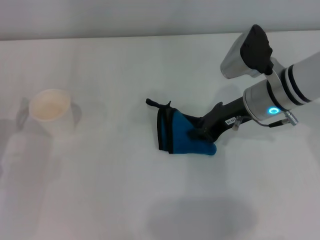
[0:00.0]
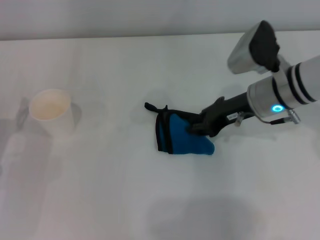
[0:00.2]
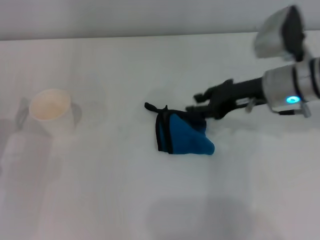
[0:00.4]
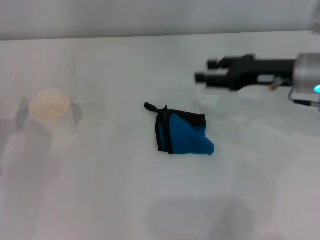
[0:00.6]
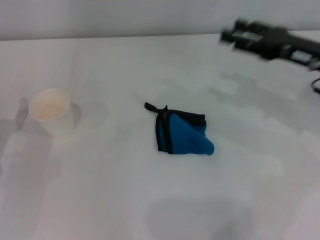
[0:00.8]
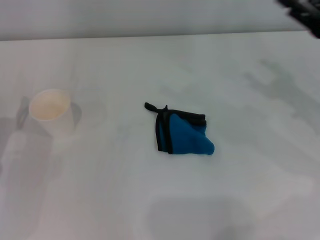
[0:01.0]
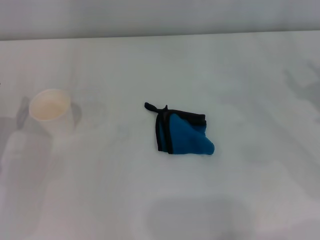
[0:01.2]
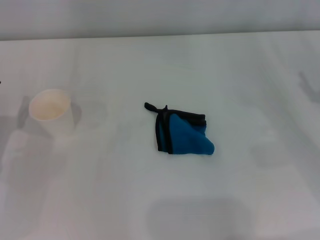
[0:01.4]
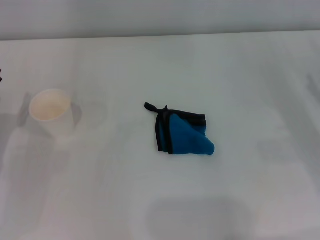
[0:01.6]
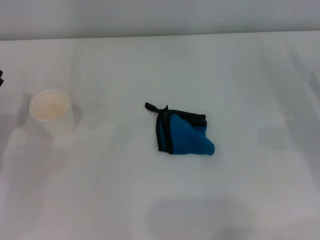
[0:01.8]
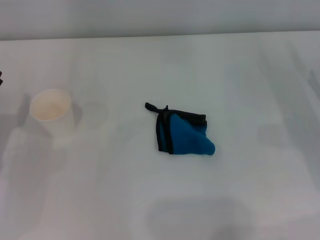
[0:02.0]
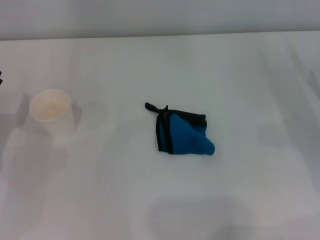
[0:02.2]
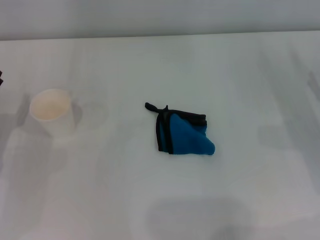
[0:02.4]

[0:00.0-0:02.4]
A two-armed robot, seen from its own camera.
0:00.0 to 0:01.2: The right gripper moves to the right and backward, roughly 20 cm, and opens its fingers.

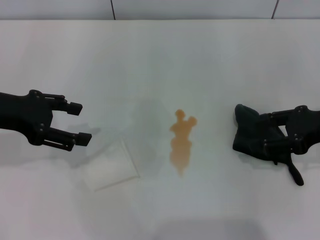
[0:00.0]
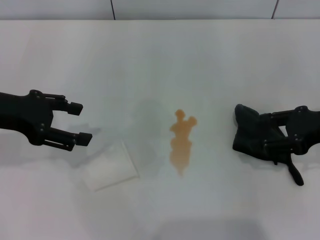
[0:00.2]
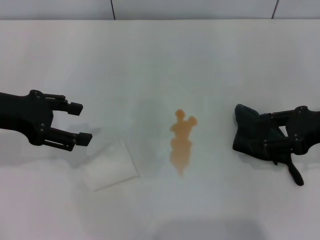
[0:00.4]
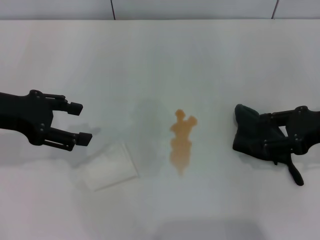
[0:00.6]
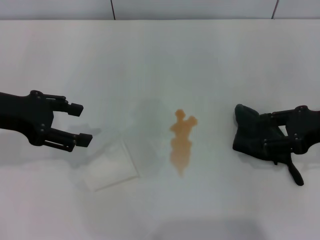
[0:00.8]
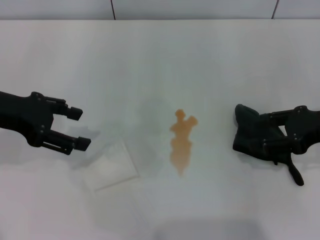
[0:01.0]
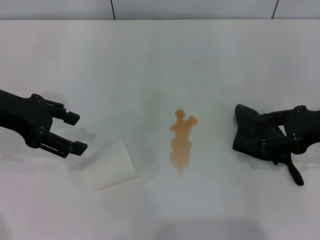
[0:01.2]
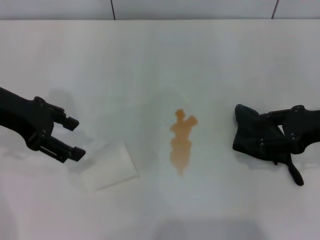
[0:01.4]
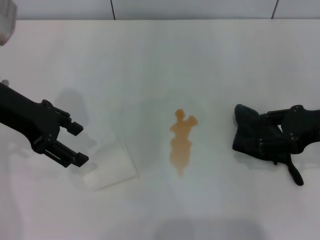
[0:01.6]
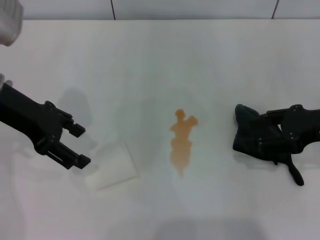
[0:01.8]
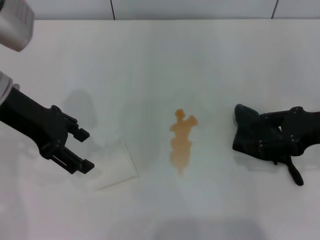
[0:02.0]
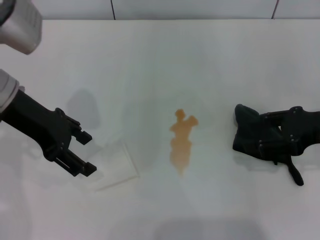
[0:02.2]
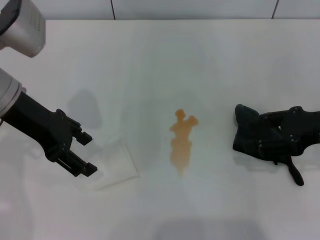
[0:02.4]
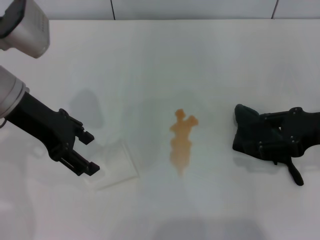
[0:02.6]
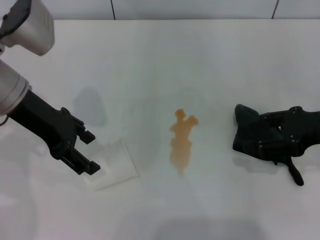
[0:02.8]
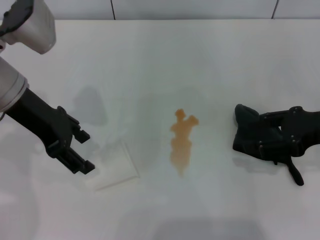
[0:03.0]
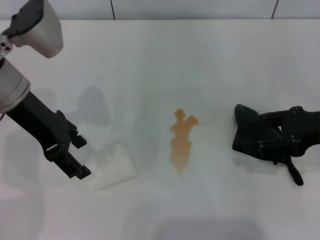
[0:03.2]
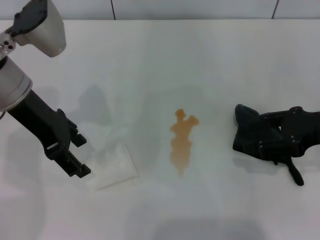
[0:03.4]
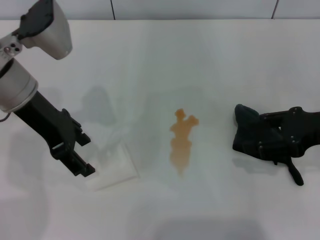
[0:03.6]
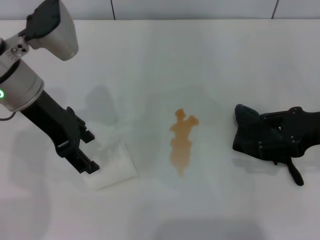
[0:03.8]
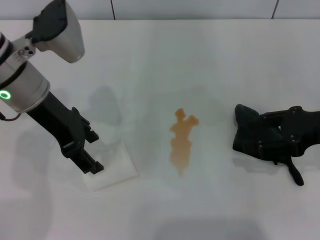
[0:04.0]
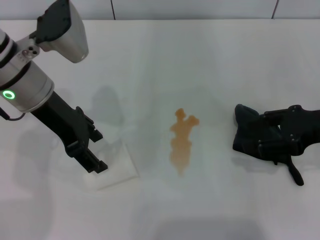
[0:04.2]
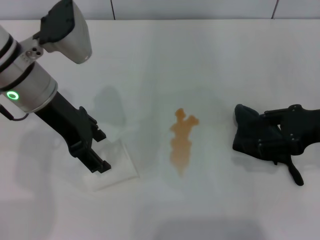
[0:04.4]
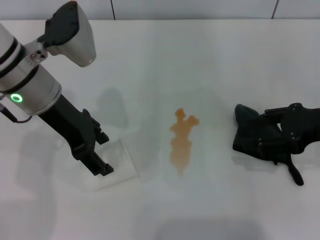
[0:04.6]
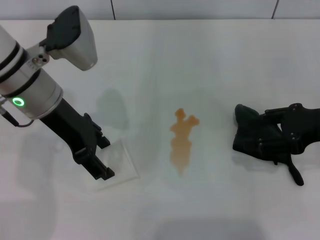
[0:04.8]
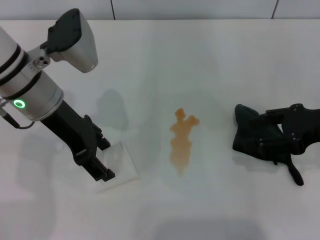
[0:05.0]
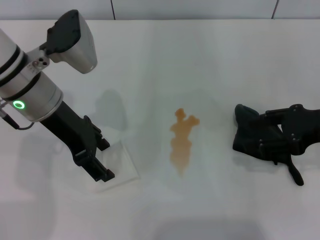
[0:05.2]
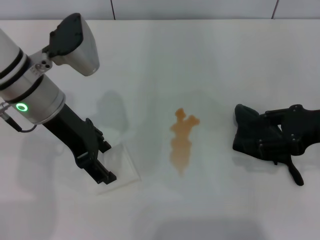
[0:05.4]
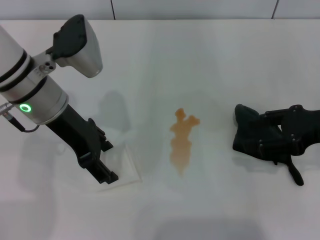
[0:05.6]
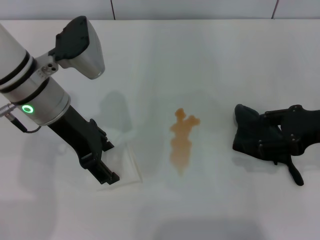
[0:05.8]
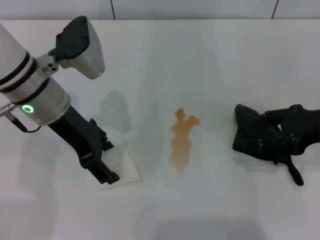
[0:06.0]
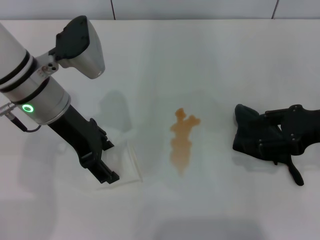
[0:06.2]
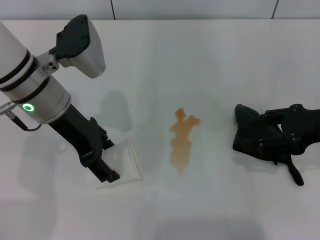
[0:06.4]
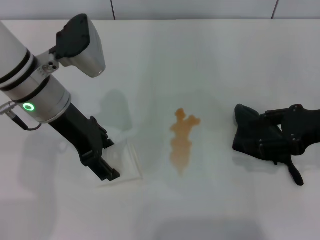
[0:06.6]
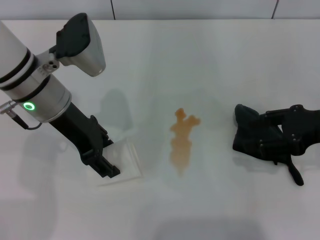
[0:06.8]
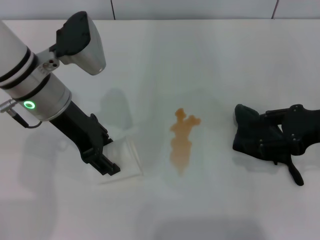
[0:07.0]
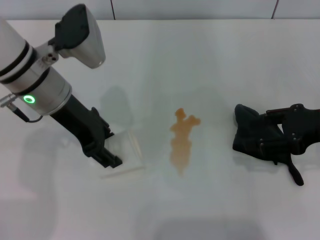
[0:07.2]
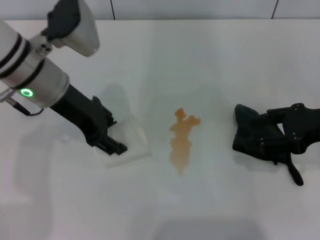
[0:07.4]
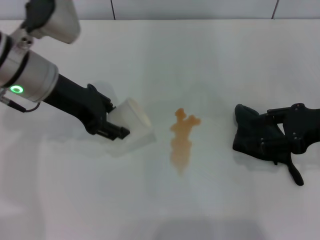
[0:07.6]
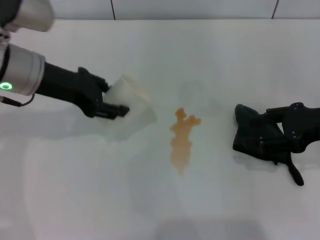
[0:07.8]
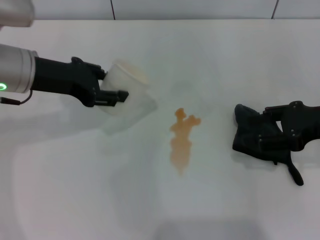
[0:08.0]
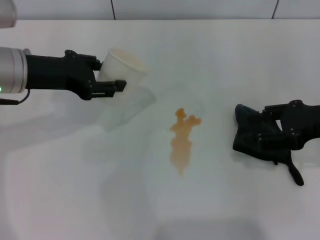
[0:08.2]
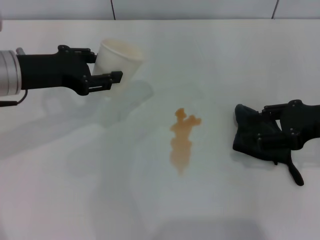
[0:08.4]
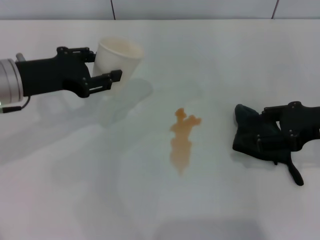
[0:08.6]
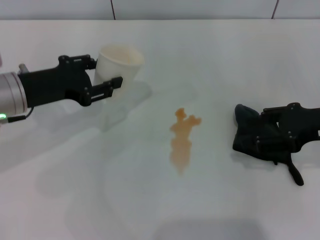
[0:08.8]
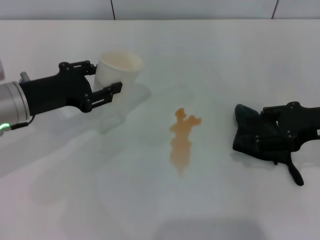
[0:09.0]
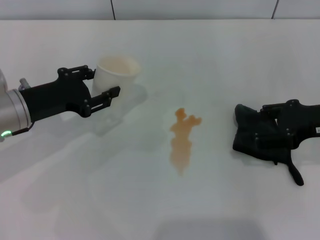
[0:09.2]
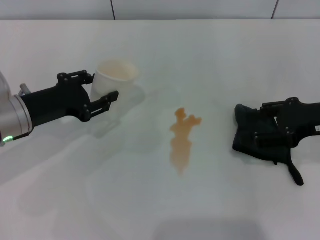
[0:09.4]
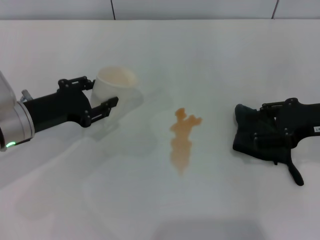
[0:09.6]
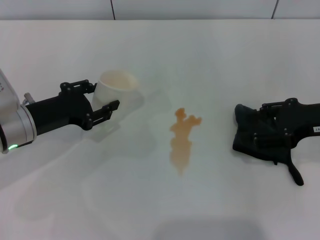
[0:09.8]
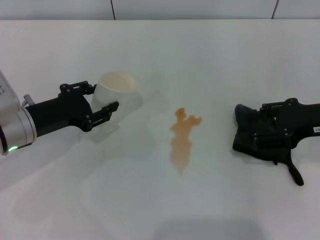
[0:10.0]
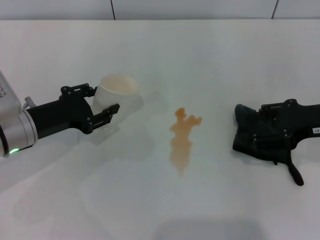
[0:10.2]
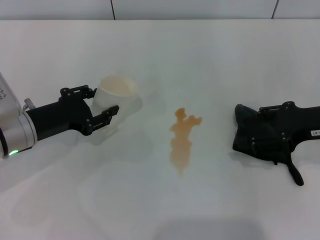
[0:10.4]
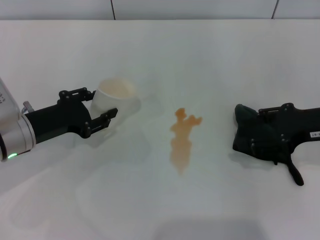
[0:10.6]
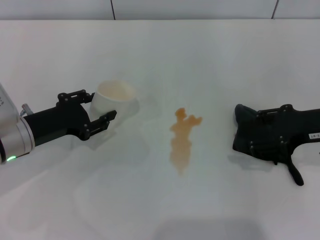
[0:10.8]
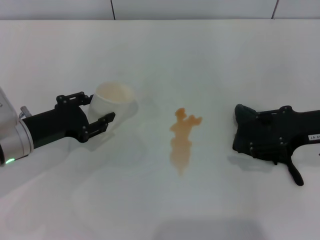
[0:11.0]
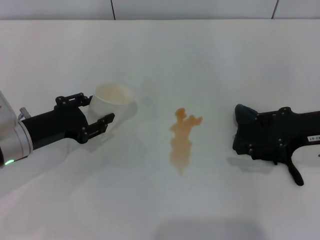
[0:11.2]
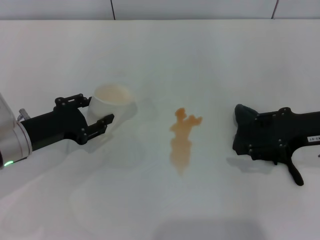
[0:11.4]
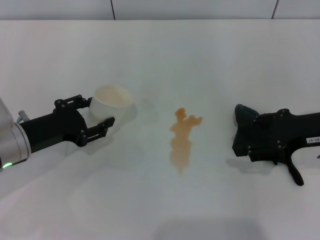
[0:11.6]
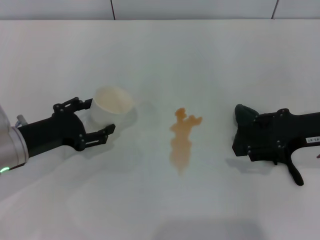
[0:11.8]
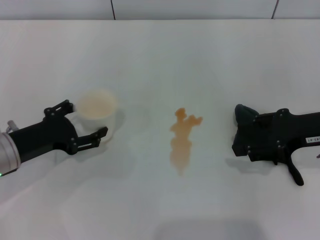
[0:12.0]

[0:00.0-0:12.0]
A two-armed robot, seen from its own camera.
Step, 0:00.0 to 0:06.2: Grasp the paper cup with the left gripper.
0:00.0 to 0:01.6: The left gripper shifts by about 5 cm.
0:01.6 to 0:03.0: There are only small adjustments of the grippers.
0:03.0 to 0:06.0: The grippers make only small movements.
0:06.0 to 0:07.6: The left gripper closes.
0:07.6 to 0:09.0: The left gripper heads downward and to the left, covering roughly 10 cm.
0:09.0 to 0:10.4: The grippers make only small movements.
0:10.4 to 0:12.0: The left gripper opens up.

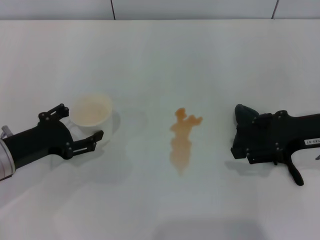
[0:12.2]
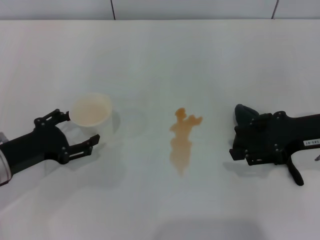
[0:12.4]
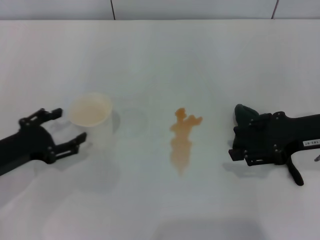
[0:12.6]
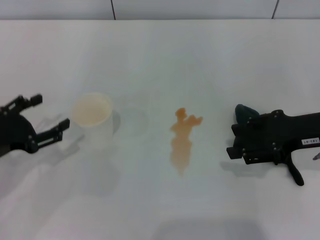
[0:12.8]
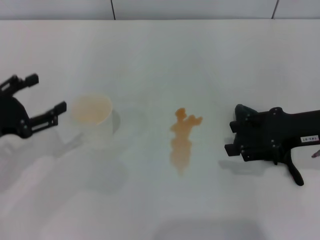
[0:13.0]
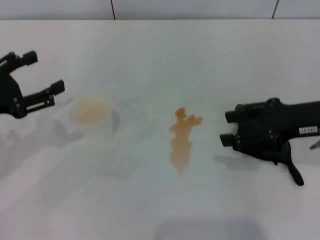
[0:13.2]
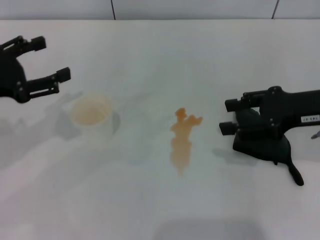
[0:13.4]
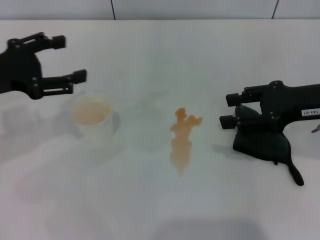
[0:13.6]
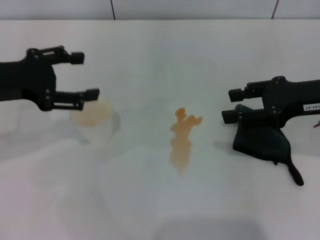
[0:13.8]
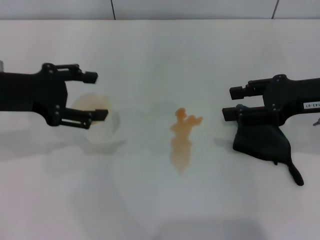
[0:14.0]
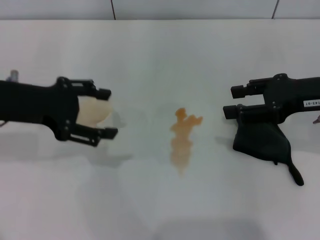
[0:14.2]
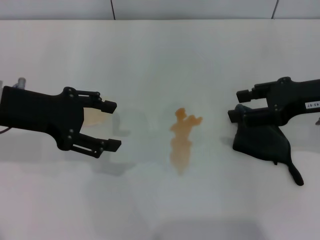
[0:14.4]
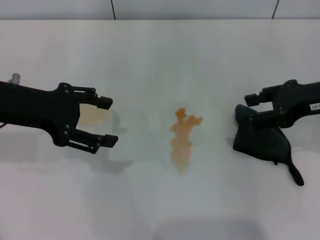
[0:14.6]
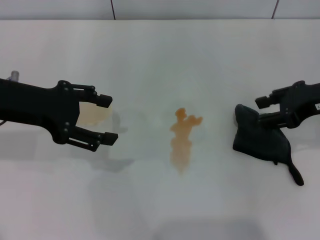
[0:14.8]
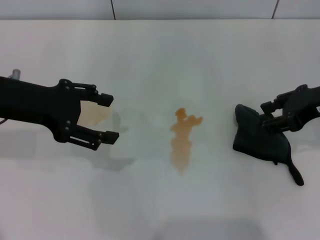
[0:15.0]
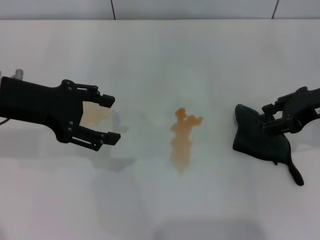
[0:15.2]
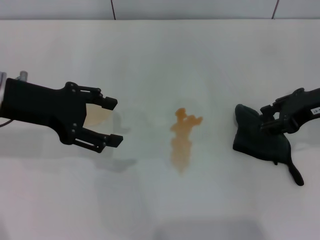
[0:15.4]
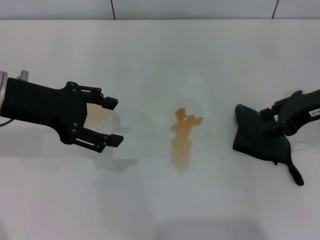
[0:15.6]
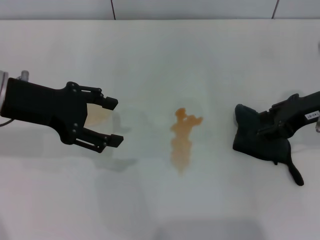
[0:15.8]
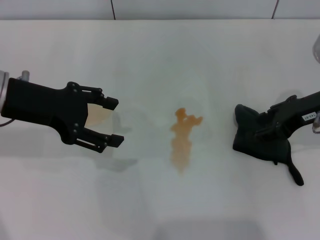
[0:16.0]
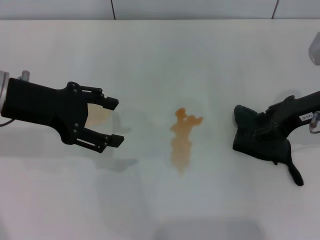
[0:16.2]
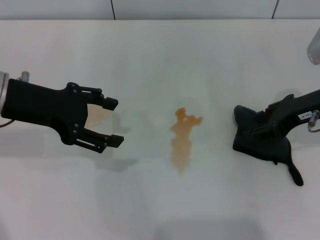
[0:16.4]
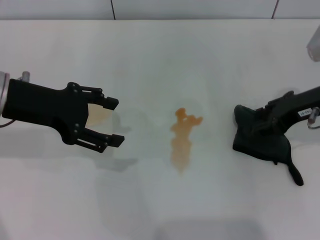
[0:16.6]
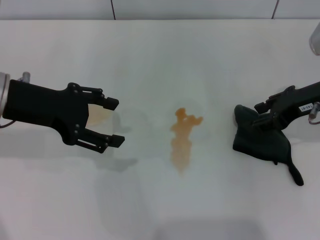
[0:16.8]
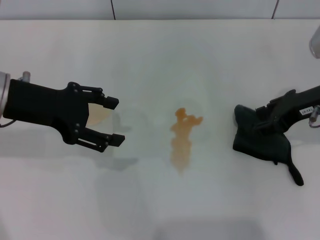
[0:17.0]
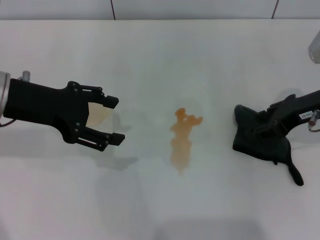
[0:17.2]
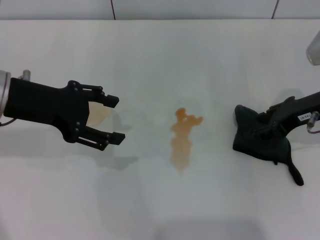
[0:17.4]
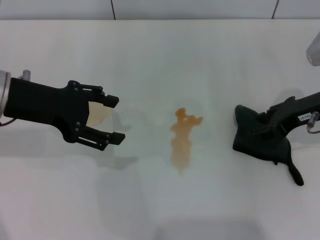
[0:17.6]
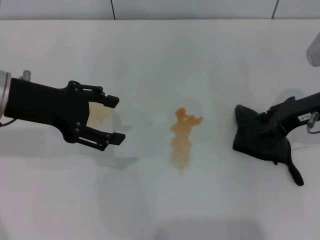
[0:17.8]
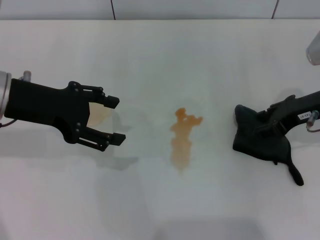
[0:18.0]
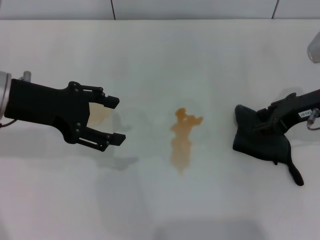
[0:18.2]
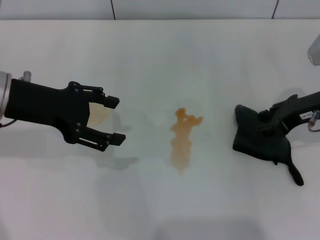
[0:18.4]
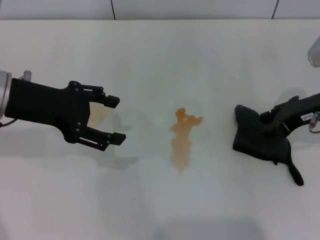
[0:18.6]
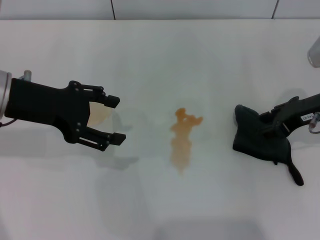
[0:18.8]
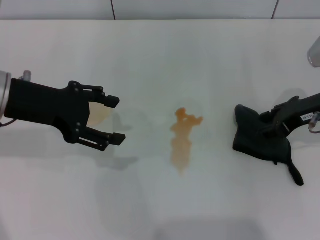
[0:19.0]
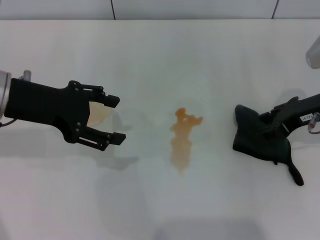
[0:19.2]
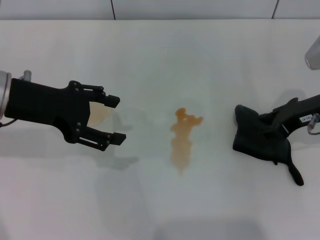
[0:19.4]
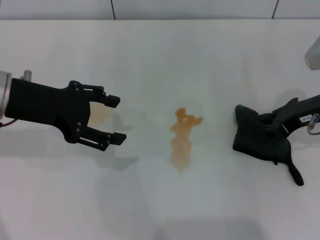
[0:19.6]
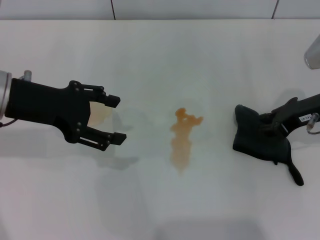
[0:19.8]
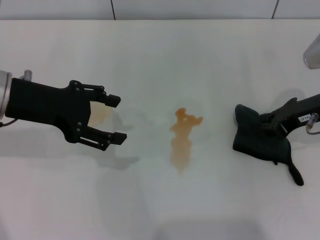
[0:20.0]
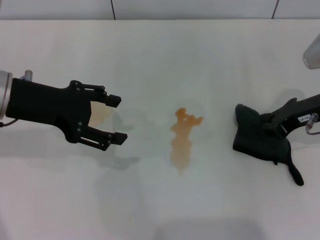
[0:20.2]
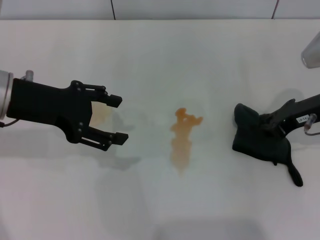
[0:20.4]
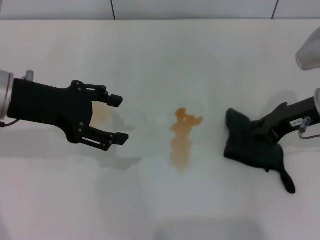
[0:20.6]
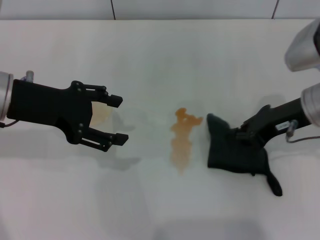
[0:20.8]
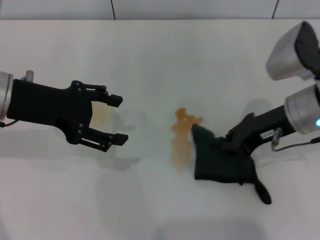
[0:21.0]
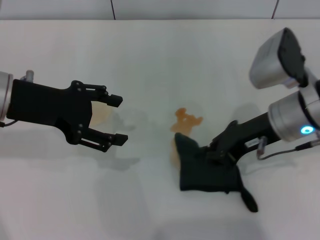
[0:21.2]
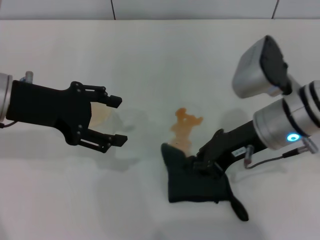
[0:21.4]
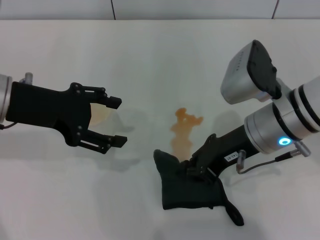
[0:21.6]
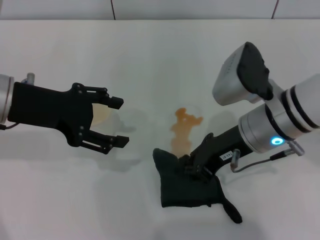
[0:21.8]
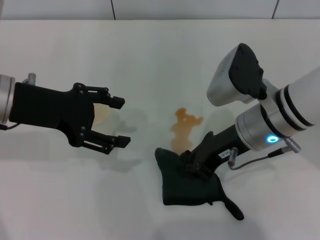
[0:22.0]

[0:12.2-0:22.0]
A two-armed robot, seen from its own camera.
Step, 0:13.0 to 0:20.4: Grasp the rag with the right gripper.
0:12.2 to 0:13.6: The left gripper travels upward by roughly 10 cm.
0:13.6 to 0:15.0: The left gripper heads to the right, covering some 5 cm.
0:15.0 to 0:16.4: There are only small adjustments of the grippers.
0:16.4 to 0:19.2: Neither gripper changes place.
0:19.2 to 0:20.6: The right gripper closes up.
0:20.6 to 0:22.0: The right gripper heads to the left, covering some 10 cm.
